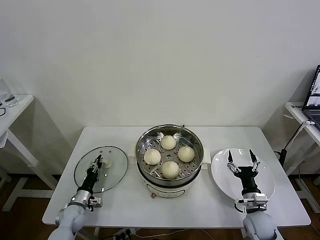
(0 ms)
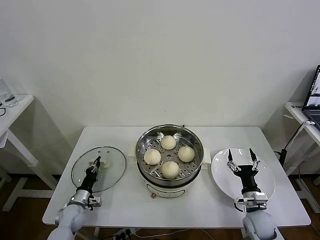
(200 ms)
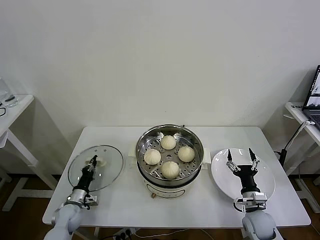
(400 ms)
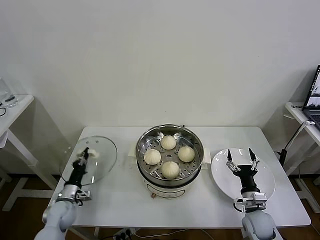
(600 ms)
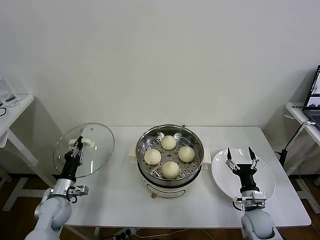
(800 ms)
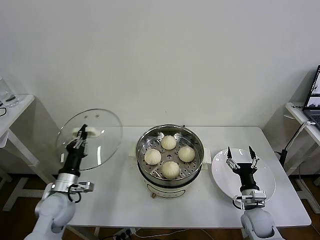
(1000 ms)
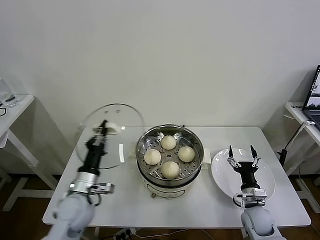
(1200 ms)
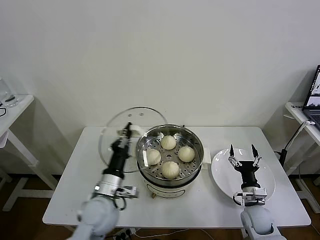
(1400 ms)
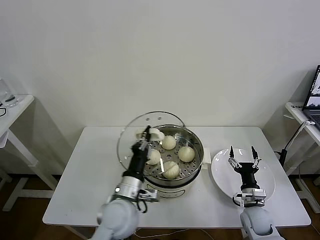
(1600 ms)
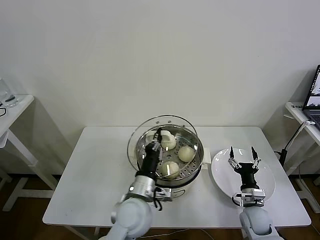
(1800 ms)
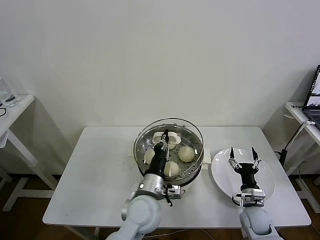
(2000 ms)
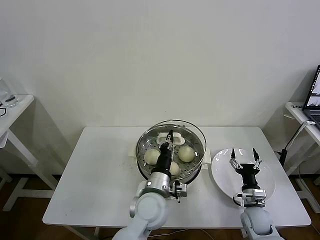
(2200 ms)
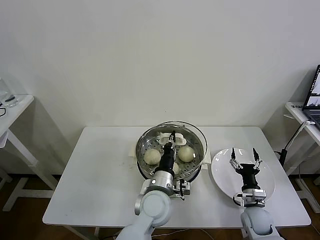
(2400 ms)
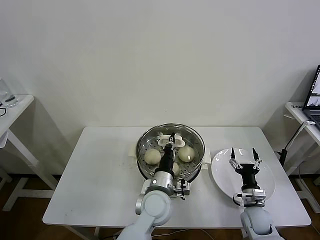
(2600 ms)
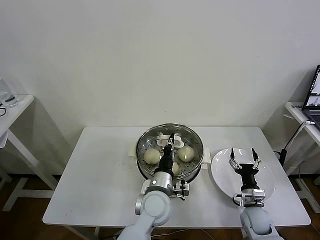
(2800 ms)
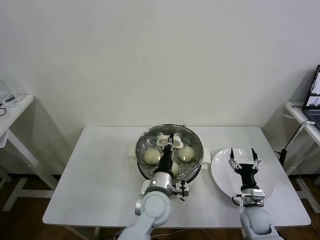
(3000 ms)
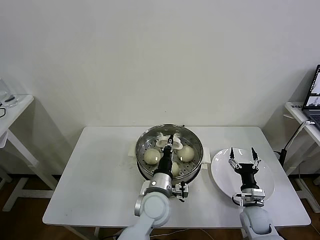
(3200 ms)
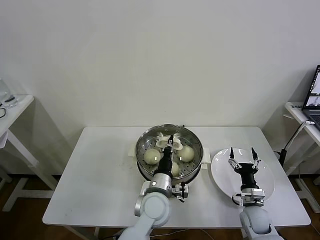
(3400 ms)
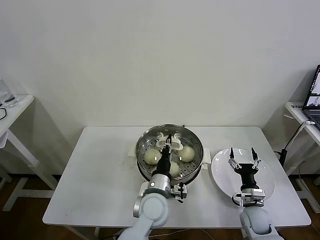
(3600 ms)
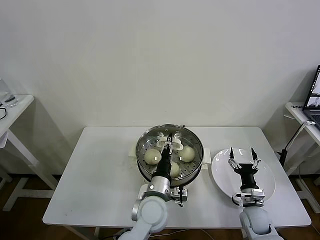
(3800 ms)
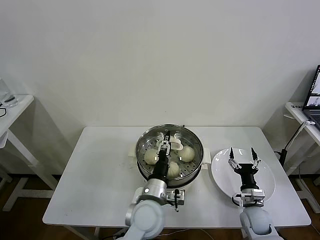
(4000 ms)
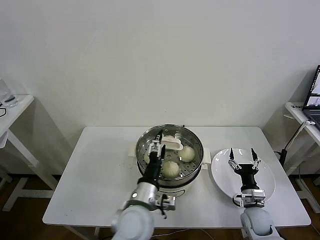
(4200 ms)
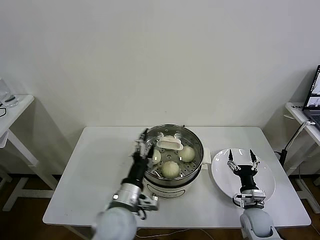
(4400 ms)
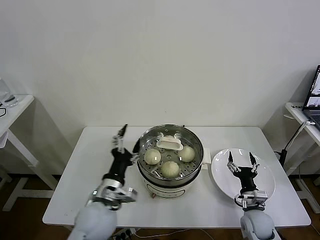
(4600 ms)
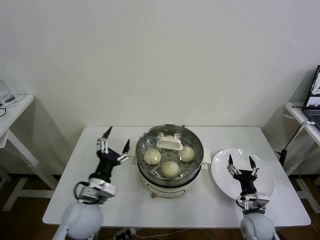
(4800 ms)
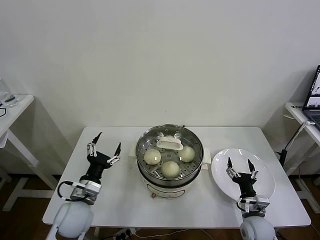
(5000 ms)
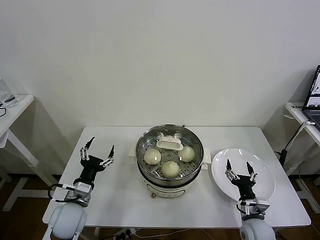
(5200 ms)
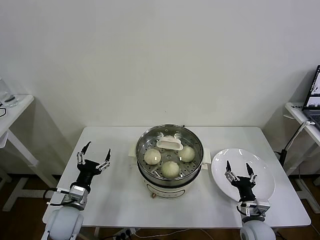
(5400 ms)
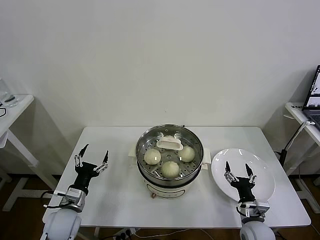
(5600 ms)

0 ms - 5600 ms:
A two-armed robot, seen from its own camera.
Task of the whole recording: take steamed baozi put them in steamer then cover it.
Step, 400 ms - 4200 ms: Place the pot lid on the steamer with left gripper.
0 ms - 1400 ms: The left gripper goes about 25 cm upward and to the right.
1400 ms - 2800 ms: The left gripper heads to the right, covering some 15 cm.
2800 ms - 4200 ms: The left gripper goes roughly 5 cm backward, and opens up.
4200 ms - 5600 ms: The right gripper moves backward, some 5 cm. Meanwhile the left gripper goes approximately 25 cm to the left.

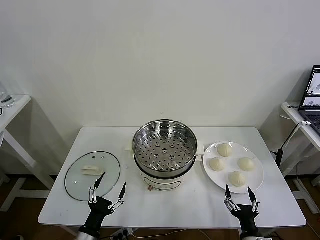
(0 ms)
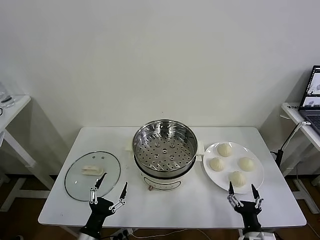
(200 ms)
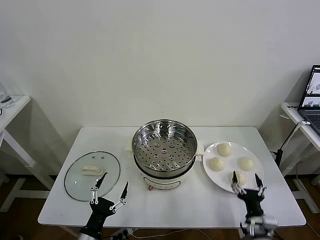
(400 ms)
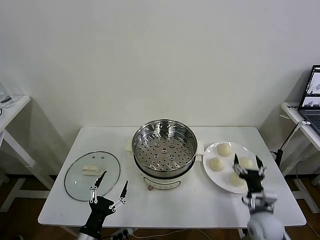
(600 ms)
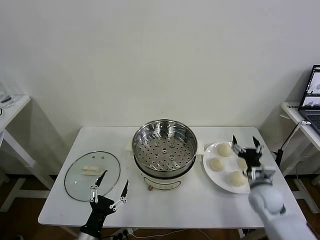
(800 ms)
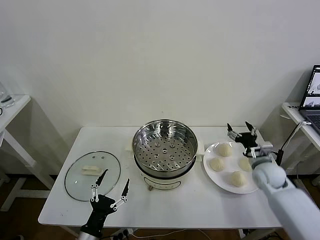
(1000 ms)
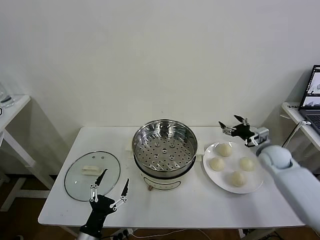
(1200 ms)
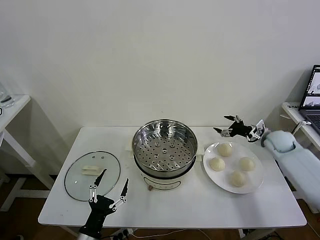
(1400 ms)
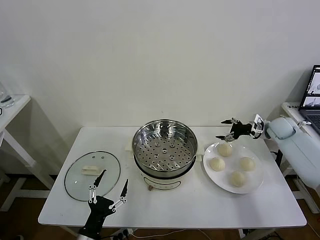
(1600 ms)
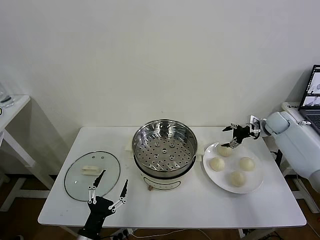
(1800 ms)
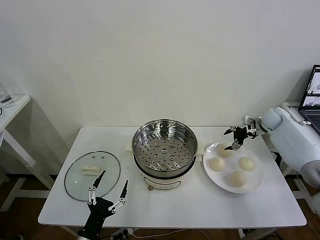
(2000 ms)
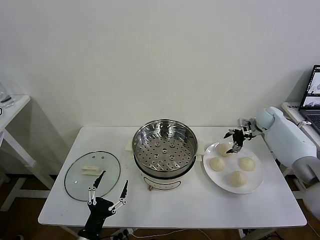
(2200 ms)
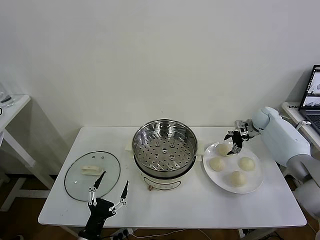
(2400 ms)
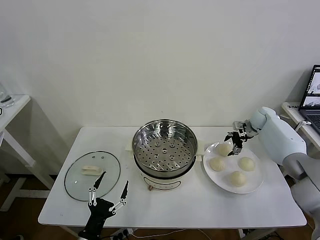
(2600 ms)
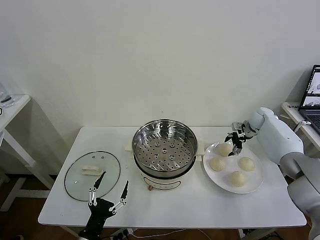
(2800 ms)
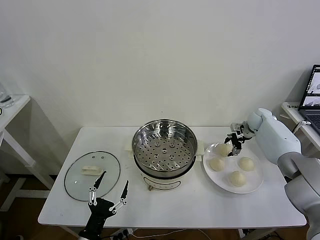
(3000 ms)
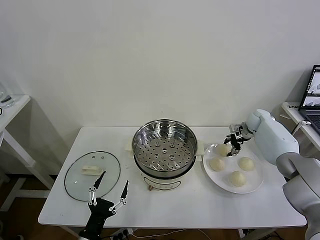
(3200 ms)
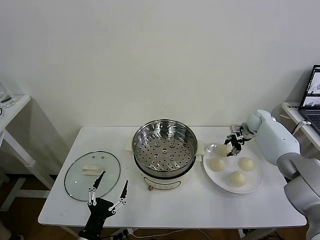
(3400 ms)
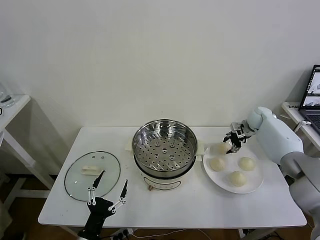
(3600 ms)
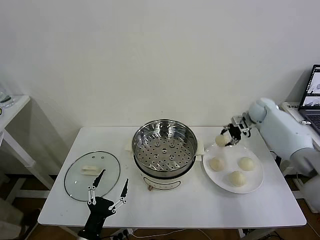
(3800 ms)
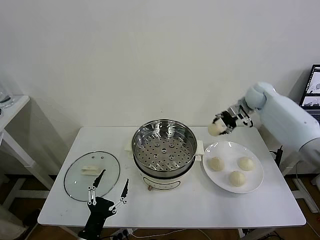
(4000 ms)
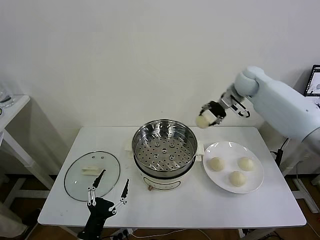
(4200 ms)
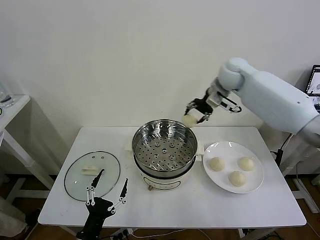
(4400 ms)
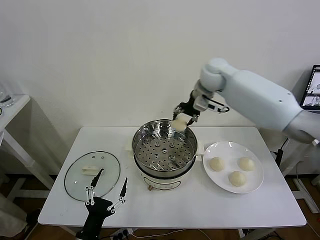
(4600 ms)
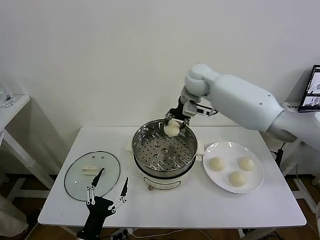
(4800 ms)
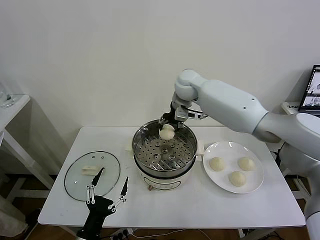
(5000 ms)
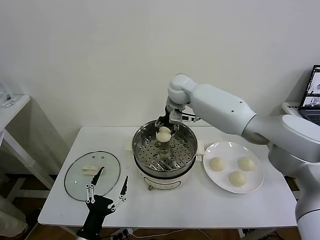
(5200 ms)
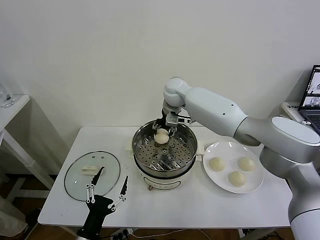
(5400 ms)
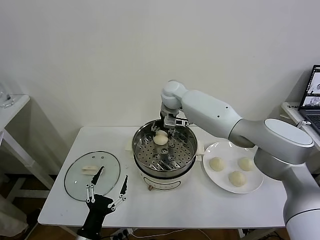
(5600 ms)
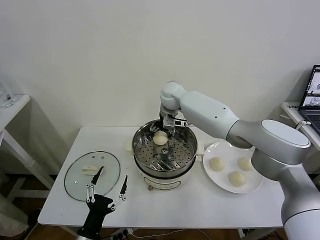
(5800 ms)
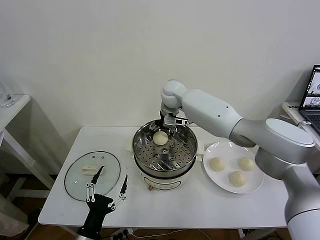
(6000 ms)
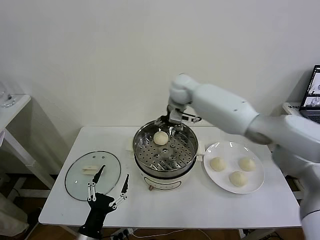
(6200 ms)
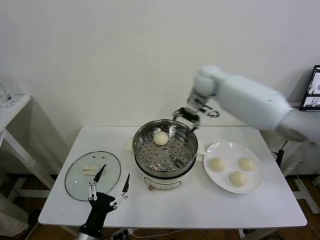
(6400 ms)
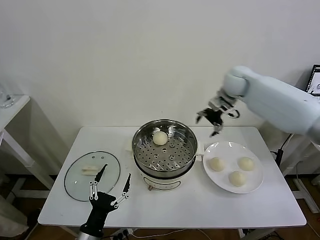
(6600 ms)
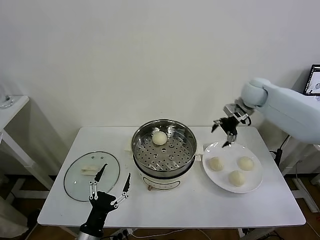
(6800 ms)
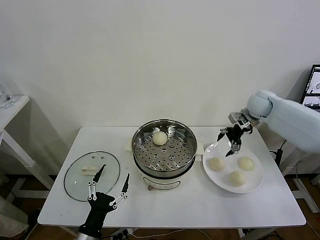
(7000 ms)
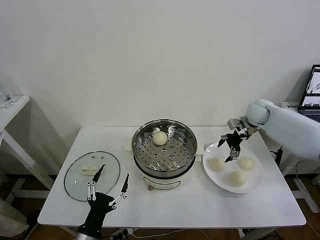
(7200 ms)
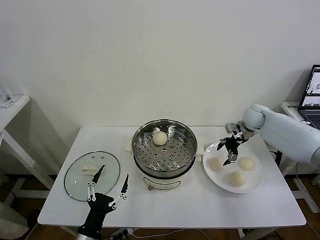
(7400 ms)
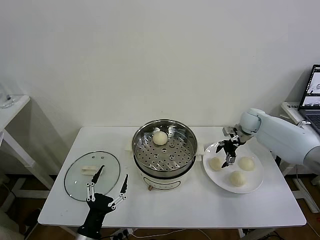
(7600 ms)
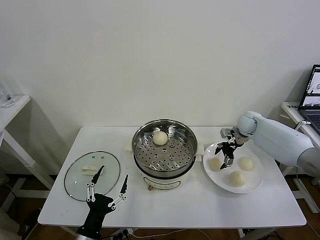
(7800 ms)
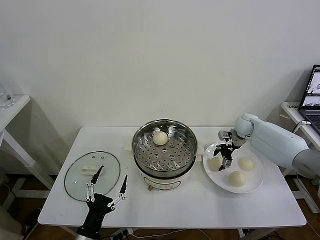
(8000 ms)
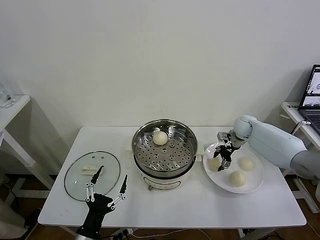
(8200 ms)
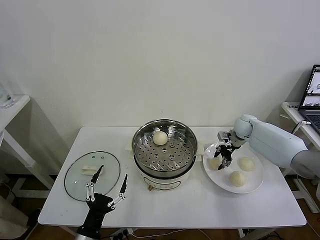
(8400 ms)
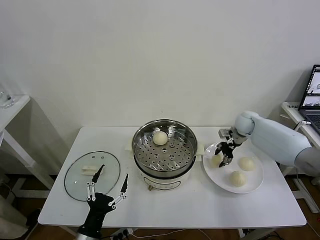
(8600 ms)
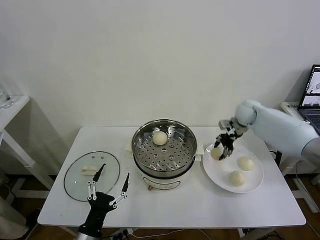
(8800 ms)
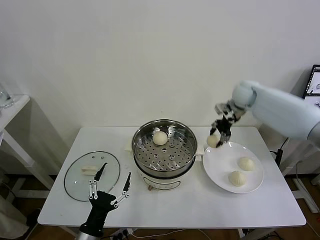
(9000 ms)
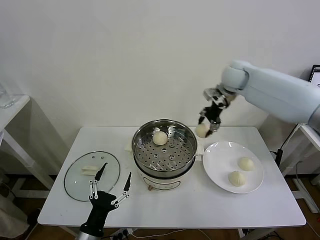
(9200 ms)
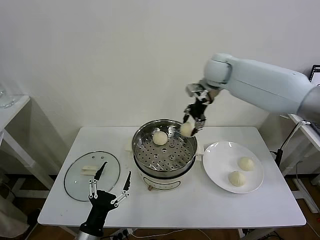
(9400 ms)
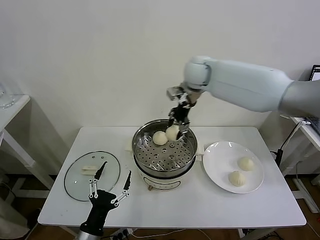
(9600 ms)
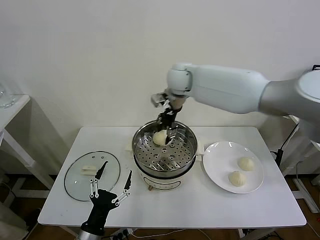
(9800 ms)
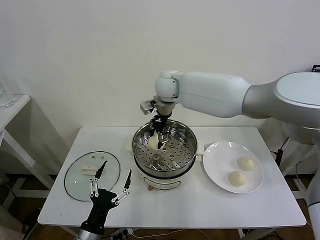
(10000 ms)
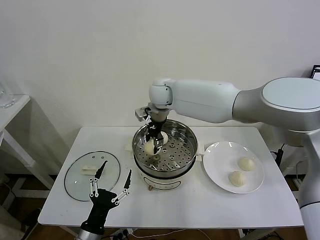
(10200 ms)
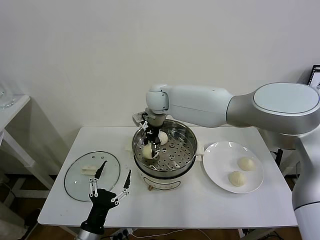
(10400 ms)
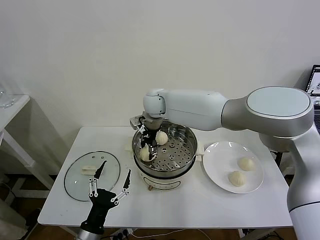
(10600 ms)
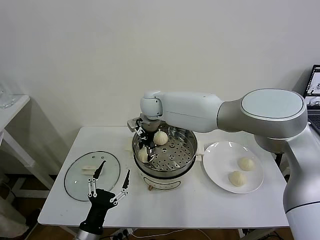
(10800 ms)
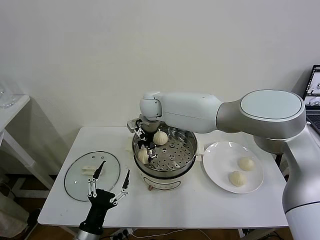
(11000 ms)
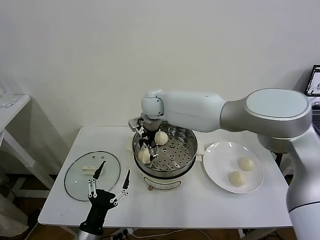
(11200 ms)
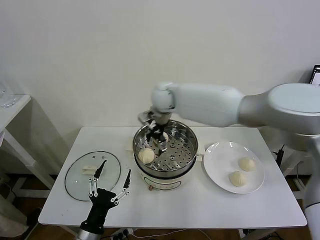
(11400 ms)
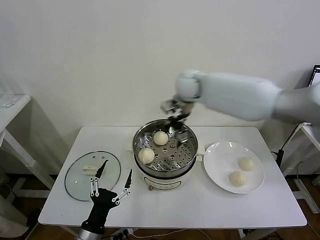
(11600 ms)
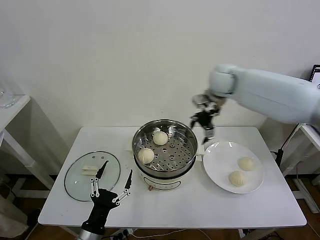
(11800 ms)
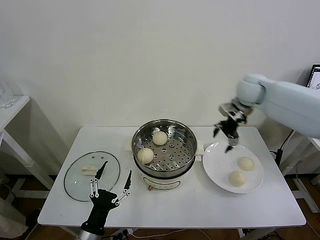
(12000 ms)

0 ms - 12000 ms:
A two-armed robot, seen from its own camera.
Task of the whole recording: take steamed baozi put them in steamer then cover it.
Step, 0 ms - 3200 ms: Grasp the baozi in the plate with right gripper.
Step, 3400 ms - 6000 ms: Place the baozi on the steamer with right gripper.
Step, 6200 ms - 8200 ms: Grasp the baozi in the plate with right gripper.
Step, 8600 ms - 11000 ms: Place the baozi on the steamer with right gripper.
1600 ms - 3000 ms: The right gripper moves forward, approximately 5 cm, and closes.
3000 ms - 4400 ms: The right gripper moves upward and to the left, about 30 cm, and closes its fingers.
4400 ms - 6000 ms: The right gripper moves to the left and downward, roughly 15 cm, and opens up.
6000 ms - 7600 ms: The right gripper shifts about 35 cm to the right and downward.
7600 ms - 9000 ms: The right gripper shifts approximately 20 cm upward and to the left, and closes up.
9000 ms - 10400 ms: The right gripper heads to the left, covering about 30 cm.
10400 ms - 12000 ms: The right gripper is displaced to the right by roughly 35 cm, and opens.

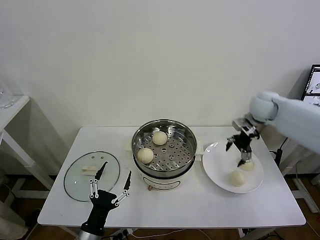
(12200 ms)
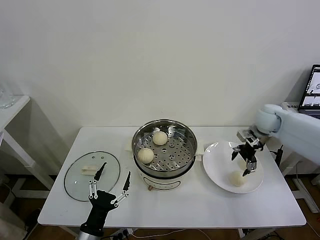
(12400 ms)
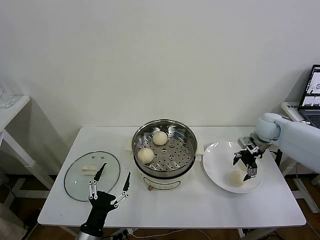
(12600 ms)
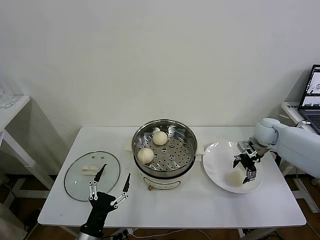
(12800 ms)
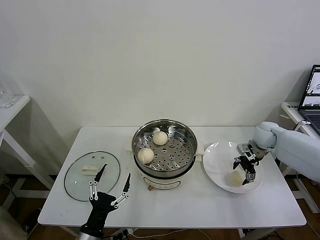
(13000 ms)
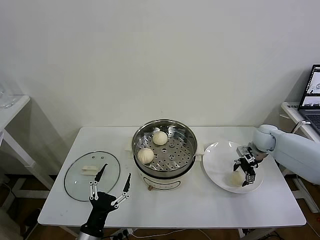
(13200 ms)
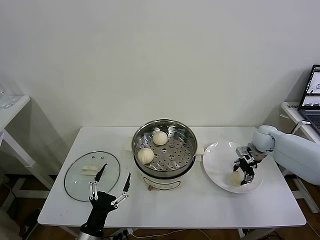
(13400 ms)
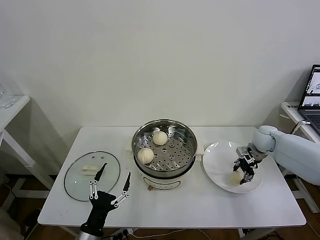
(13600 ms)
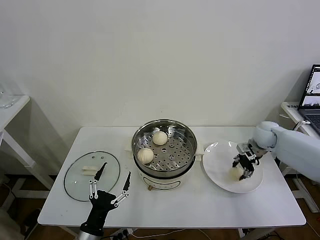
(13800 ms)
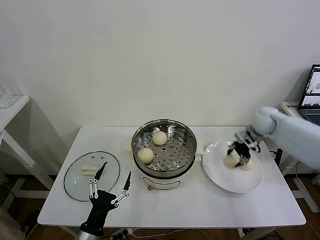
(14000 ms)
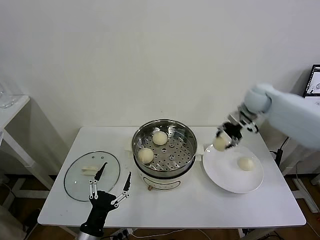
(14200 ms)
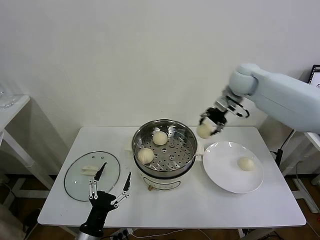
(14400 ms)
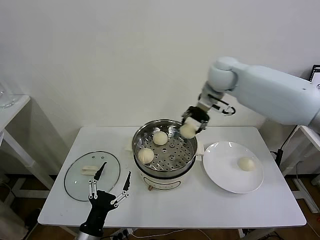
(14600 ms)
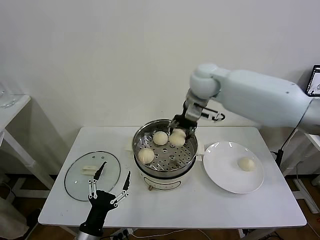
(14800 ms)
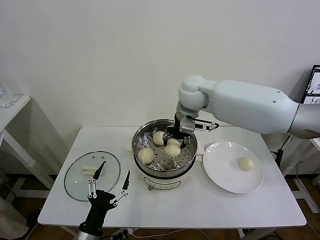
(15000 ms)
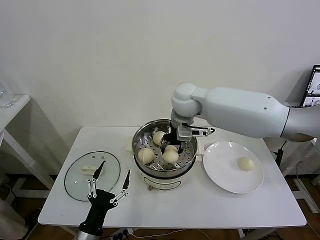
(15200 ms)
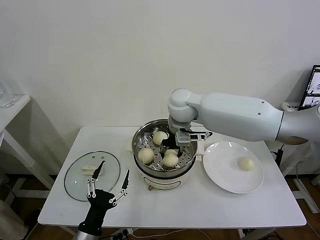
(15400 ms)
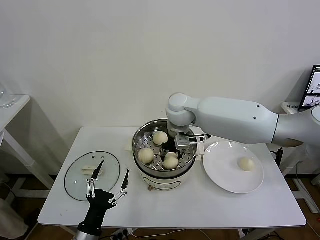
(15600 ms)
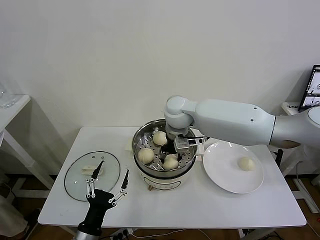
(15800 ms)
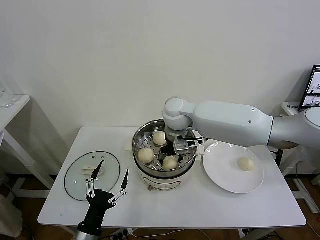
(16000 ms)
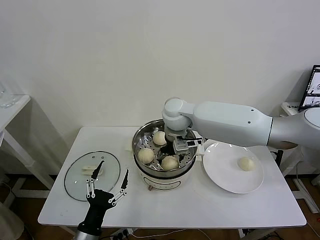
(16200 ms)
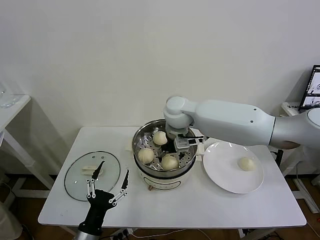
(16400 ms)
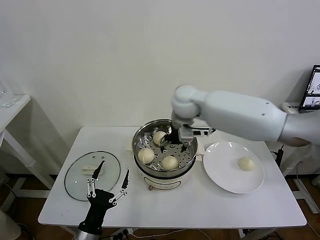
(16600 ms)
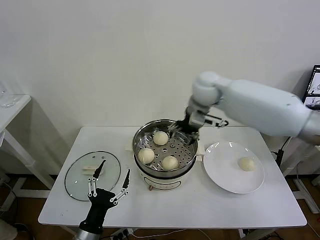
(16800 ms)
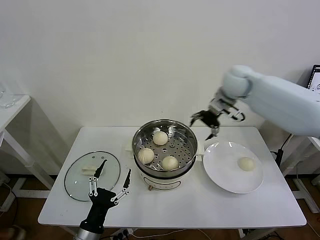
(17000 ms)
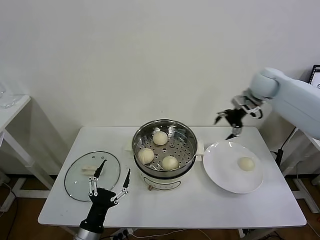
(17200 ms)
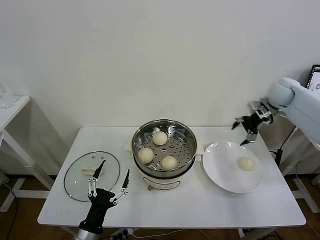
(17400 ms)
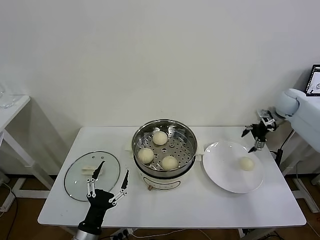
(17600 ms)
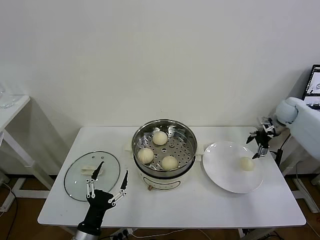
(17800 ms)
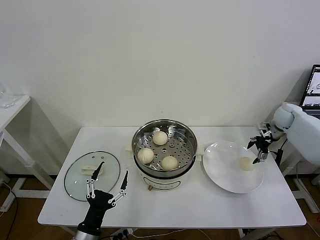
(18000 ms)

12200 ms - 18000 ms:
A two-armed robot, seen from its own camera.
Task of the whole recording: take steamed baozi put them in steamer then cover it.
Step, 12200 ms - 13400 ms: Grasp the baozi in the plate with right gripper.
Step, 13600 ms - 16200 ms: Place the baozi on the steamer with right gripper.
12200 ms - 13600 ms: The right gripper moves downward, approximately 10 cm, and closes up.
13600 ms - 15000 ms: The right gripper heads to the left and upward, covering some 35 cm.
15000 ms - 16600 ms: The right gripper opens up.
16600 ms - 18000 ms: The right gripper is displaced to the right by approximately 40 cm.
